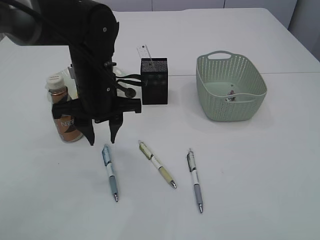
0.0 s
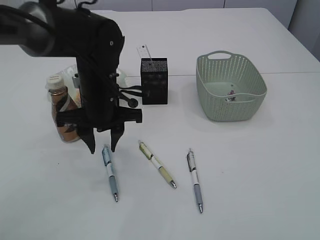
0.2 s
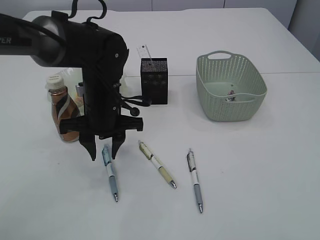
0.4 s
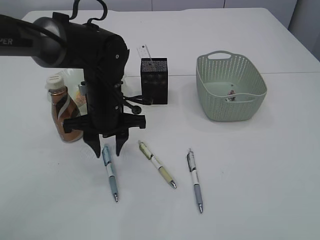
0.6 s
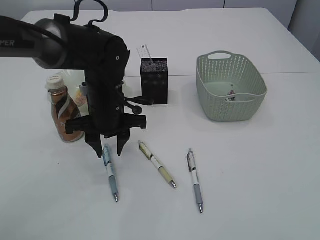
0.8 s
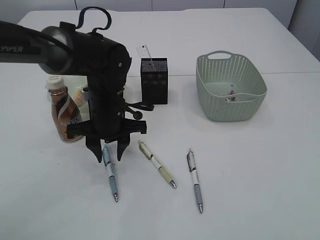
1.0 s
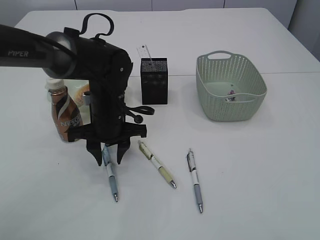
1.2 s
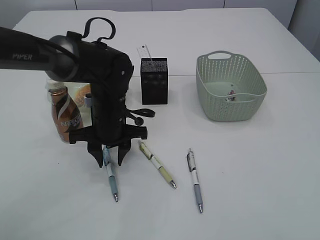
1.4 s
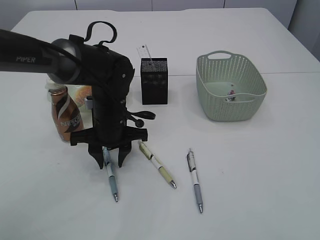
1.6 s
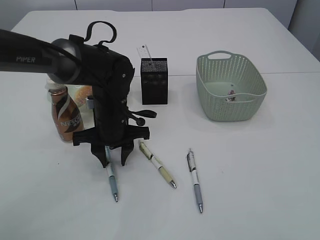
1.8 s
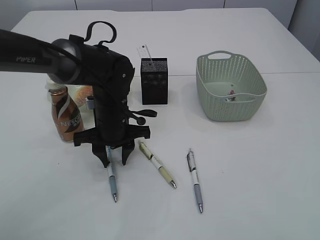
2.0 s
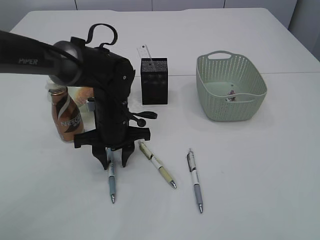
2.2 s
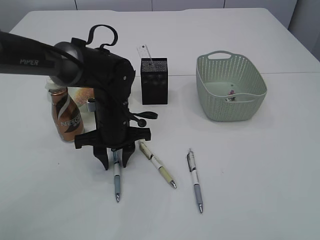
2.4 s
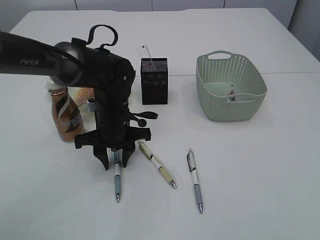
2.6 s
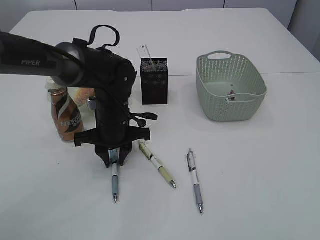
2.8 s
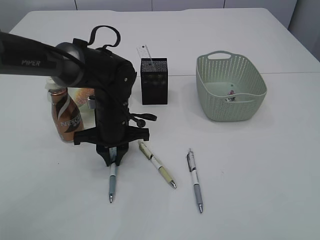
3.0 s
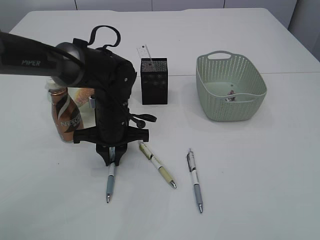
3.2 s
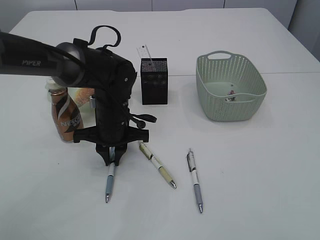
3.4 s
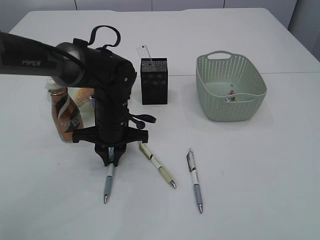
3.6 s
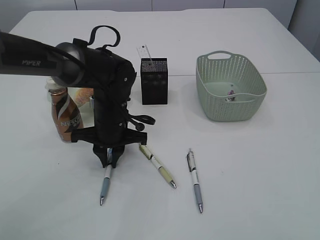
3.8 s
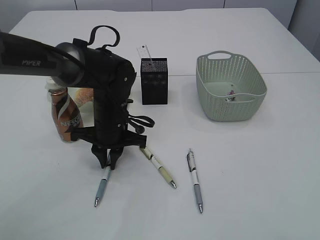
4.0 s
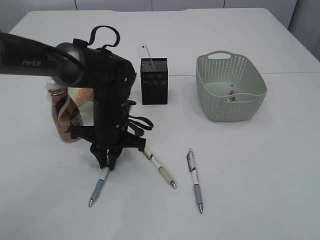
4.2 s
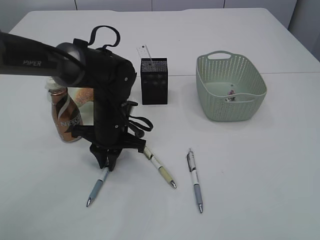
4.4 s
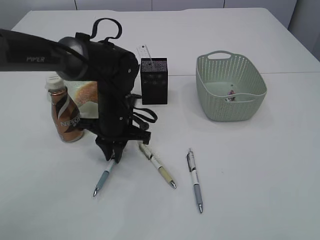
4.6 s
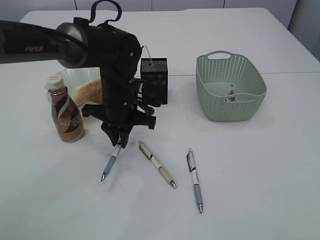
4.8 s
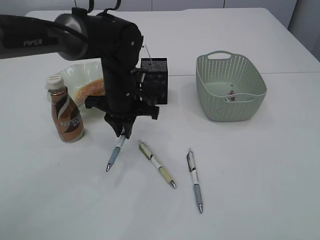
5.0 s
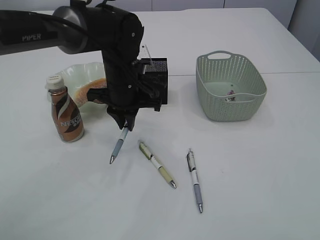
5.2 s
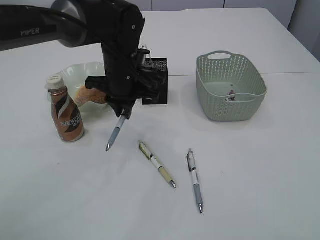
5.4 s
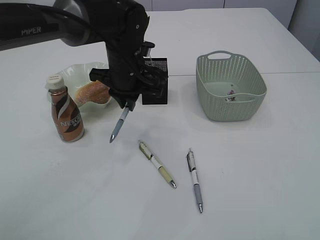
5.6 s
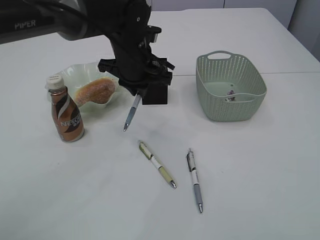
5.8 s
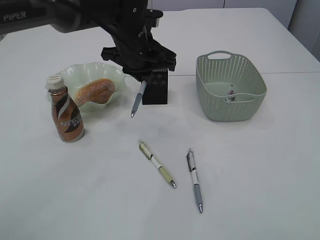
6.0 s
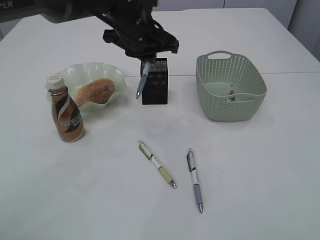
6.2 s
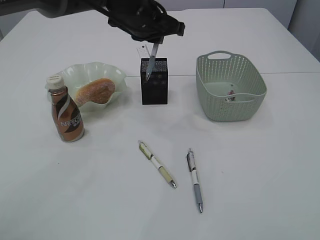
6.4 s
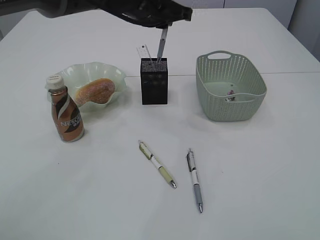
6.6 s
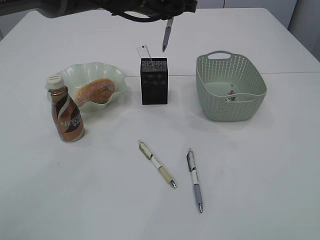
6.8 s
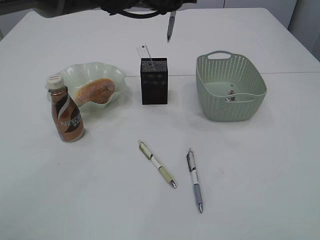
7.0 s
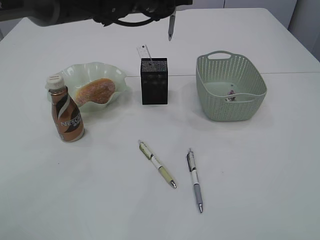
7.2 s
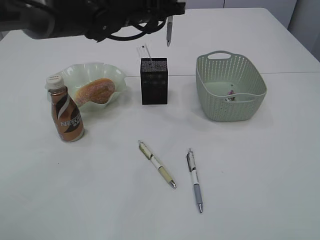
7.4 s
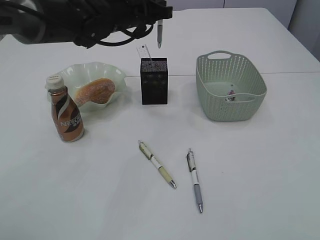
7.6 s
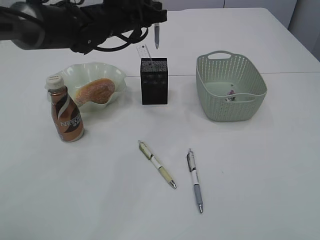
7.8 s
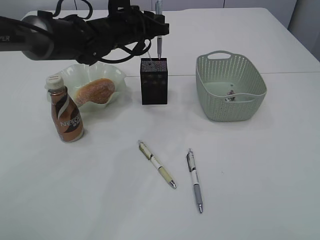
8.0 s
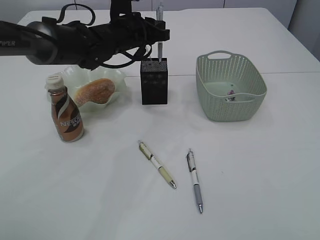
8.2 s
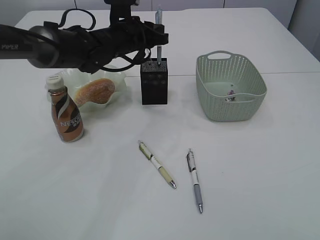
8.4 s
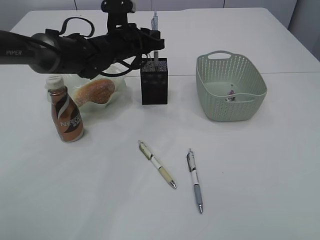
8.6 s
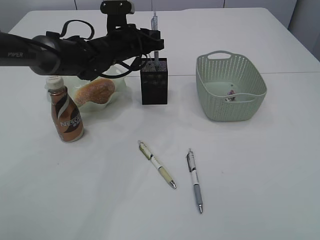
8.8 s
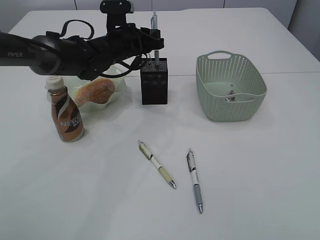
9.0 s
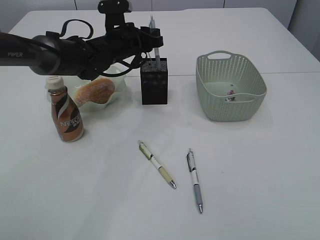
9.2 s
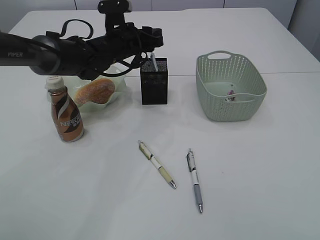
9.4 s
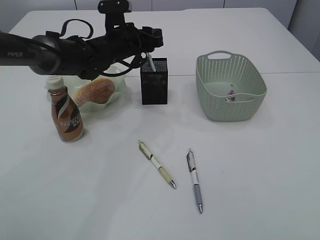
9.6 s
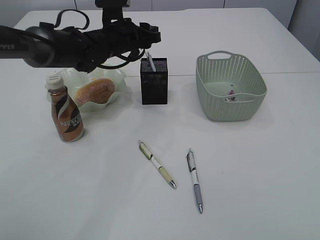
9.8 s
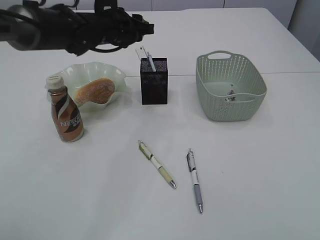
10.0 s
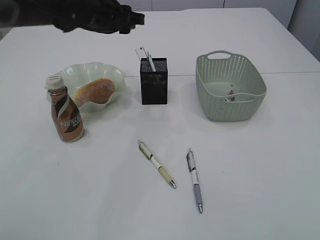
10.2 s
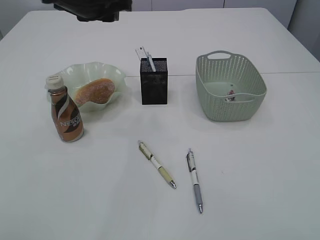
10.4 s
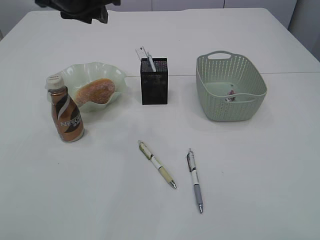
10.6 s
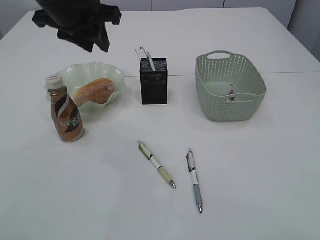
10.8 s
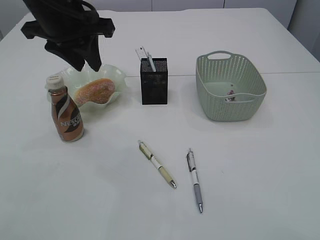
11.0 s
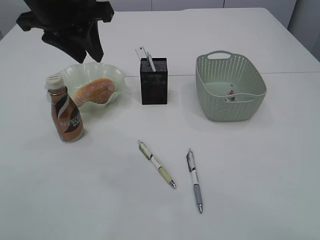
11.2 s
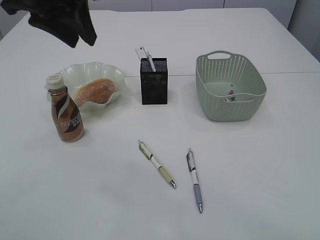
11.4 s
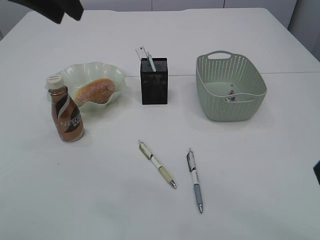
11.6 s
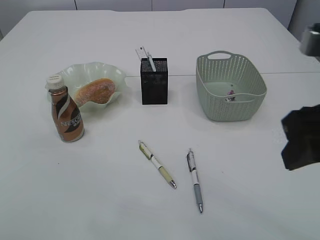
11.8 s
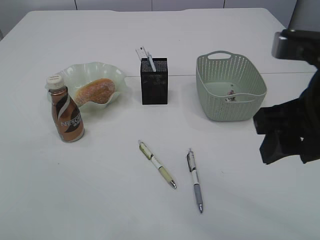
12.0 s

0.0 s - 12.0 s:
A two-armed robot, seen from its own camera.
Step, 0.0 s - 5.4 s: Pick up the pen with left arm.
Step, 5.6 s - 10.0 s: Place the pen into the pen holder.
0.0 s - 1.6 s: The left gripper travels downward by approximately 10 cm.
1.6 s - 3.0 s: The left gripper closes up.
4.4 s - 6.0 s: The left gripper shifts some 15 cm upward and forward.
6.0 s - 7.6 s: The left gripper shifts by some 5 cm.
7.6 s - 9.0 s: The left gripper is displaced downward by approximately 10 cm.
9.0 s - 10.4 s: The left gripper travels upward and backward by about 15 cm.
10.4 s - 12.0 s: The right gripper goes about 20 cm forward and to the left; the left gripper is displaced backward and upward by some 25 cm.

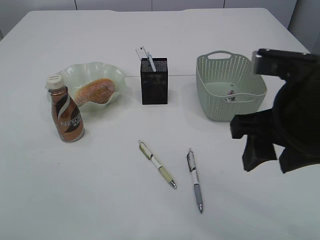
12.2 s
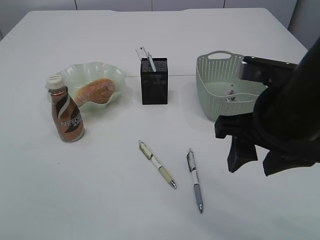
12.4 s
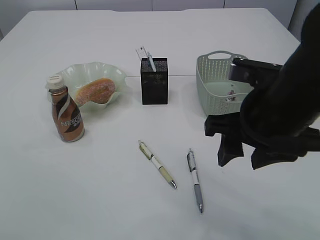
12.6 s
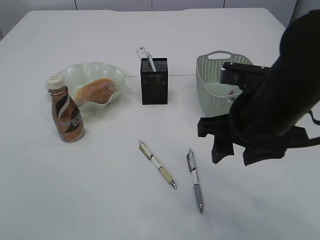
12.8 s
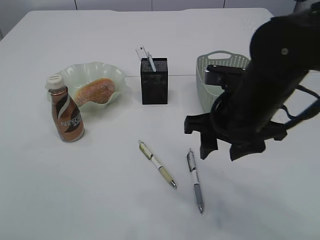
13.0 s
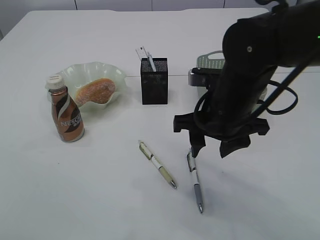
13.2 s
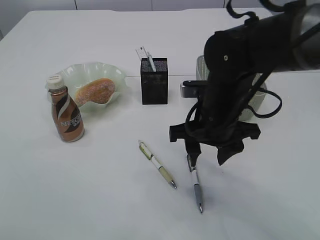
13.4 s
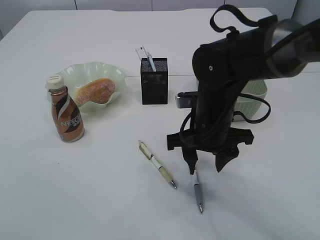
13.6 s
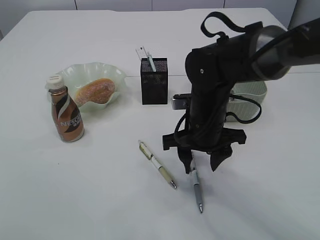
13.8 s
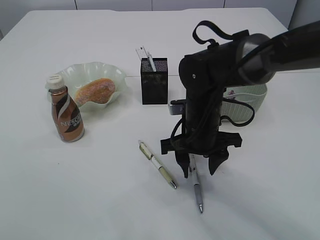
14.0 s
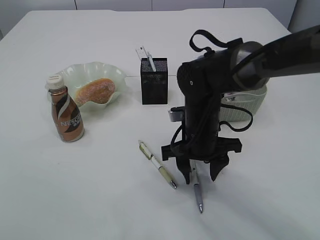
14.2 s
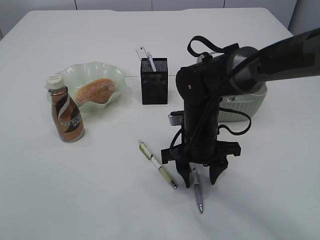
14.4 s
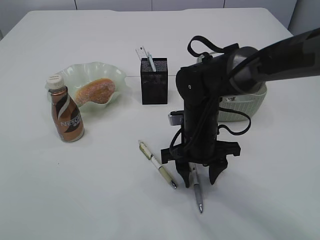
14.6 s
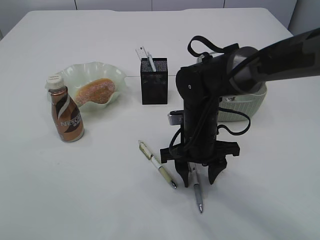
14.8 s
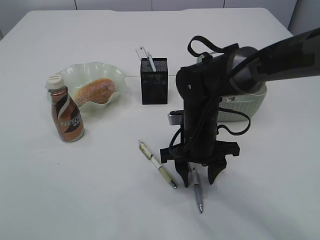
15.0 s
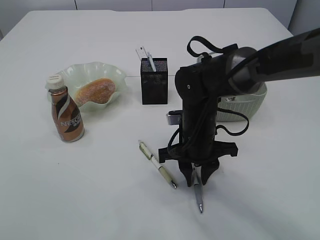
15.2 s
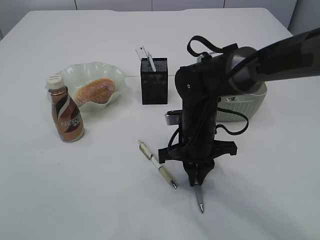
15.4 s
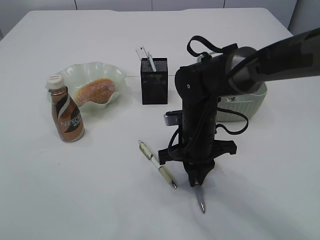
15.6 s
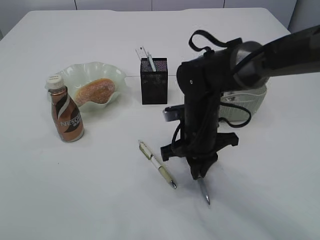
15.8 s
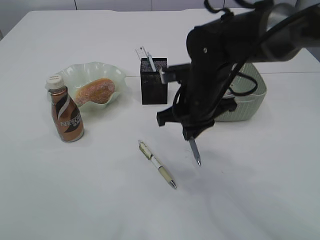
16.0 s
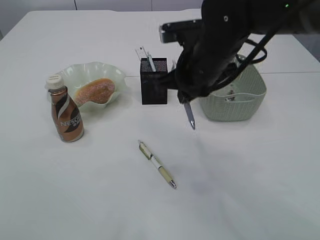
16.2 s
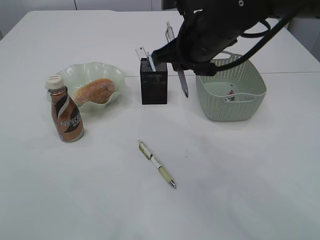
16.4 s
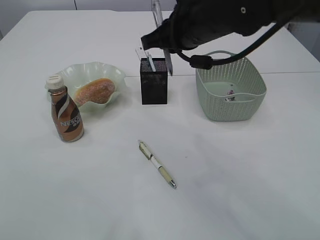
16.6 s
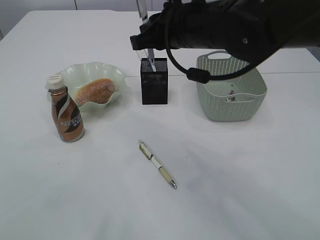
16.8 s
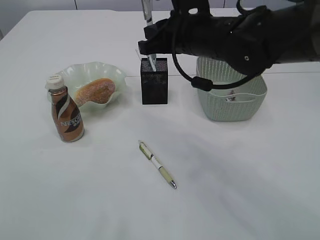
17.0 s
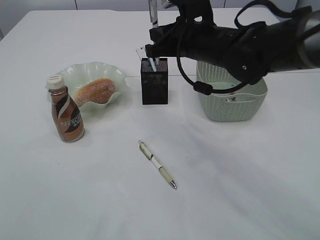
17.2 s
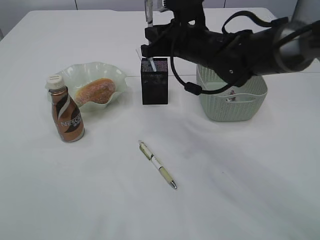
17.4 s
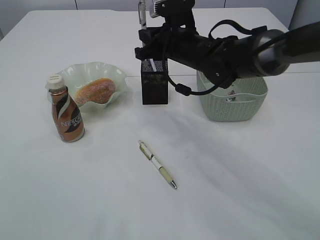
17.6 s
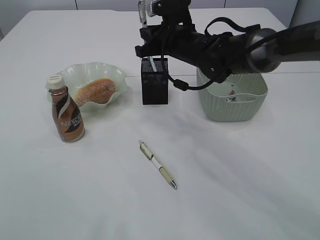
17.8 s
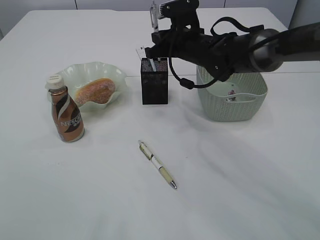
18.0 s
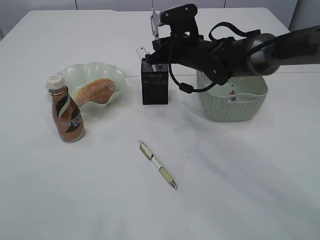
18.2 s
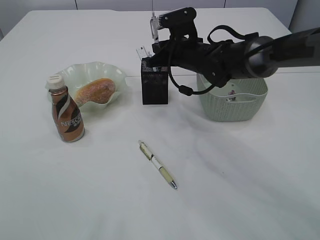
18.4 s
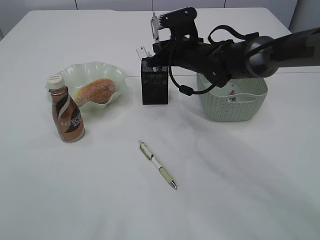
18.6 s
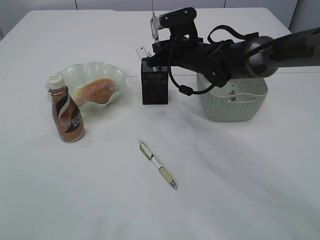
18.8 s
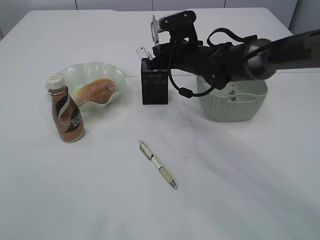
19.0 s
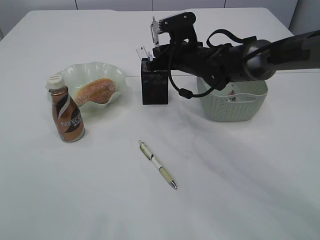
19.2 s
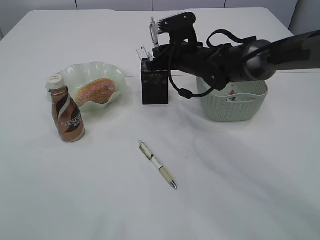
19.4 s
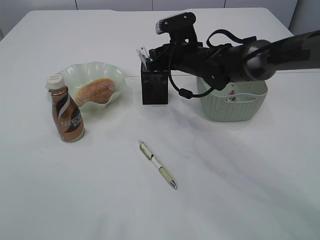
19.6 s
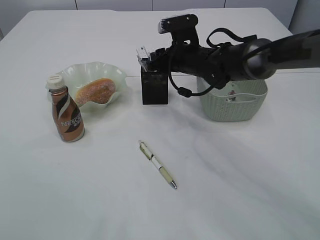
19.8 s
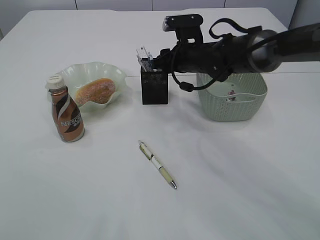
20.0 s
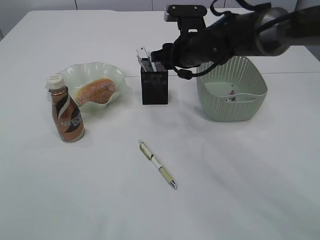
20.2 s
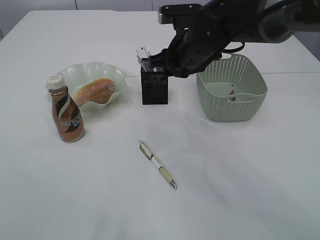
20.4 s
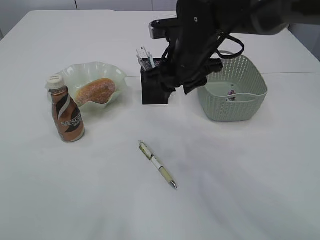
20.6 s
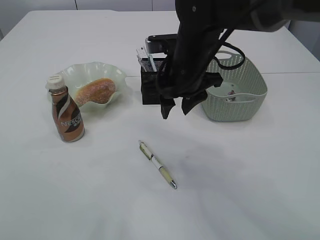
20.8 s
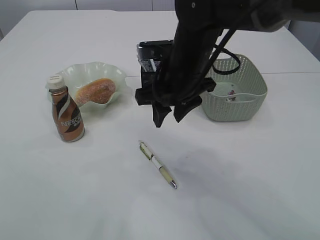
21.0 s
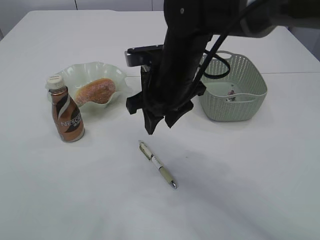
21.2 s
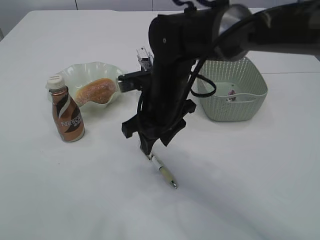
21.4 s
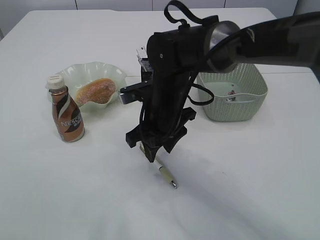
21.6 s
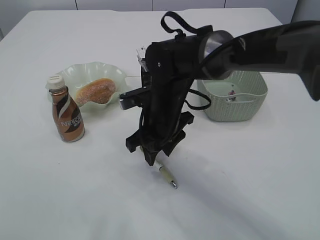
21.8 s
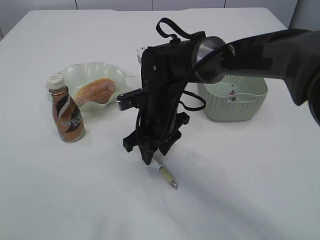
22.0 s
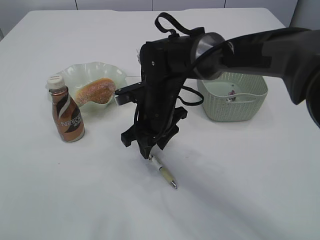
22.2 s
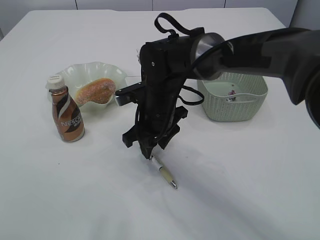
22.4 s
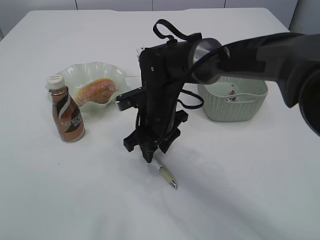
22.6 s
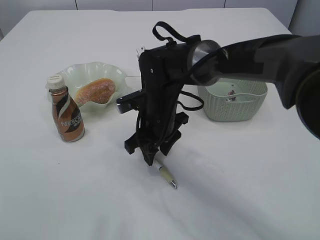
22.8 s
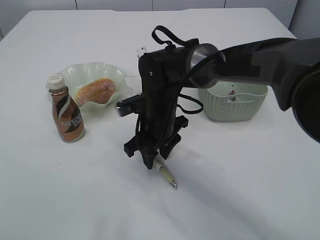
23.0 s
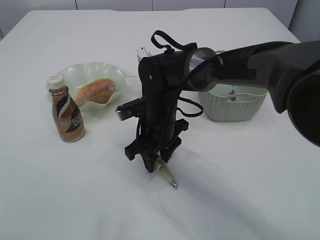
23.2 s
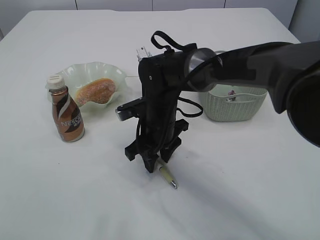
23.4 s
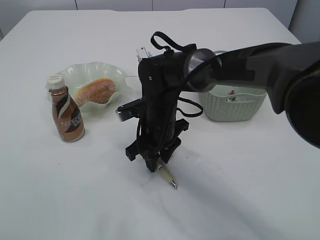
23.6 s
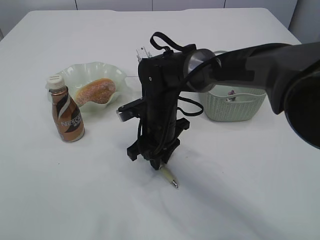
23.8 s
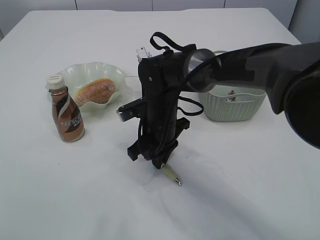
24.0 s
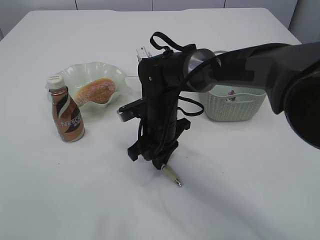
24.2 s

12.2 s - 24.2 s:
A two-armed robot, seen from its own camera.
Step, 12.2 s - 16.0 s: Pick up the pen with right arm.
Step, 16.2 s - 19.8 s: Place the pen into the pen holder.
12.2 s - 13.8 s: The right gripper travels downward, forward and to the left by some 20 cm.
13.8 s - 15.2 s: The grippers make only small movements.
15.2 s - 16.6 s: The right gripper shifts roughly 20 cm upward, and closes its fingers.
16.6 s - 18.2 s: The right gripper travels forward and downward by about 15 cm.
18.2 s - 19.8 s: The right gripper opens.
19.8 s - 21.2 s: The right gripper moves backward and upward, roughly 15 cm.
21.2 s - 22.6 s: The right gripper heads downward, covering approximately 10 cm.
22.6 s - 24.2 s: The right gripper closes.
